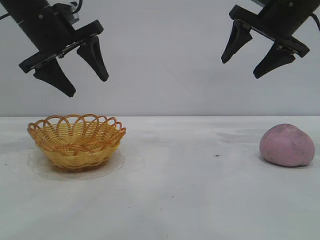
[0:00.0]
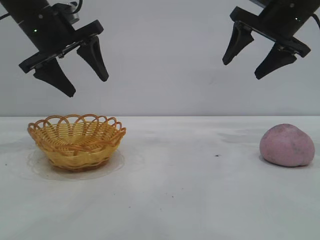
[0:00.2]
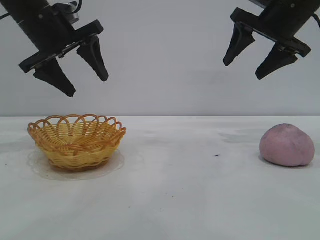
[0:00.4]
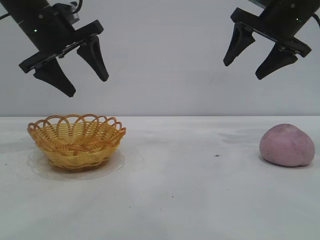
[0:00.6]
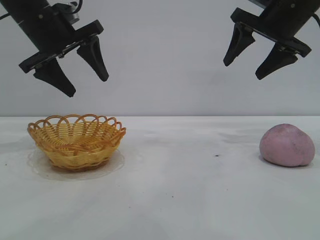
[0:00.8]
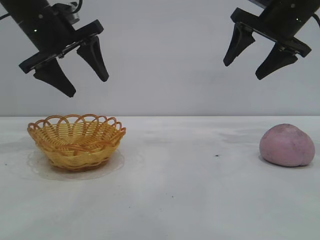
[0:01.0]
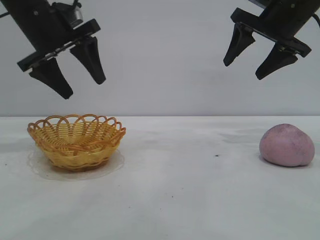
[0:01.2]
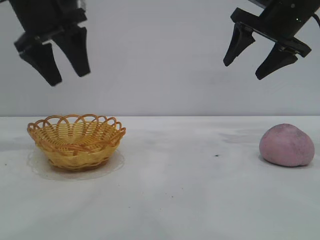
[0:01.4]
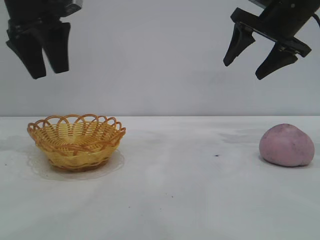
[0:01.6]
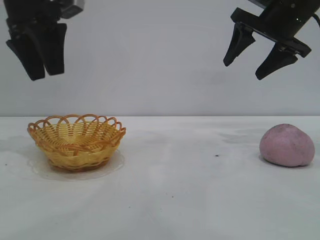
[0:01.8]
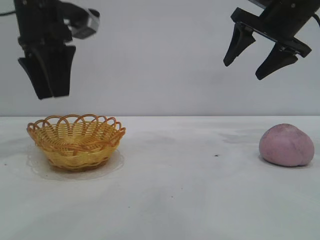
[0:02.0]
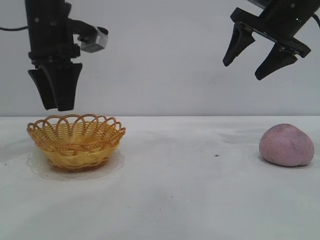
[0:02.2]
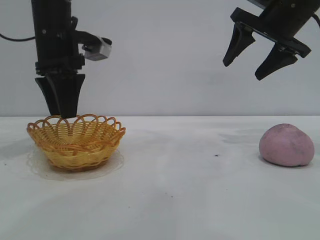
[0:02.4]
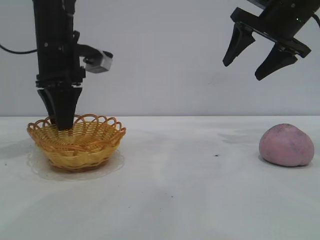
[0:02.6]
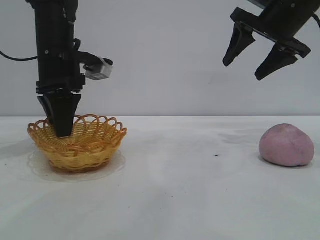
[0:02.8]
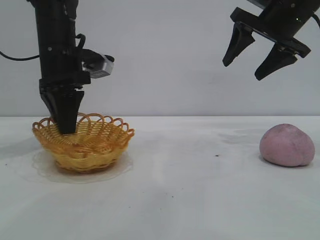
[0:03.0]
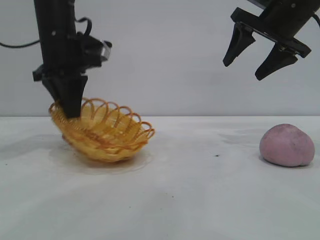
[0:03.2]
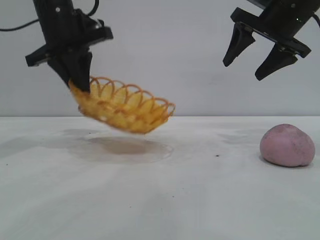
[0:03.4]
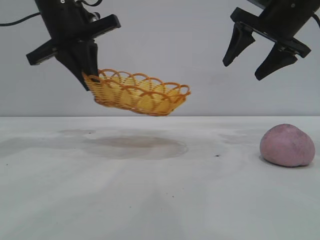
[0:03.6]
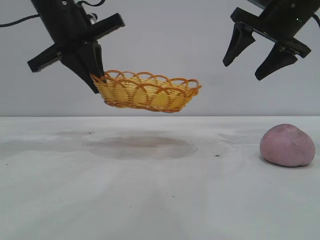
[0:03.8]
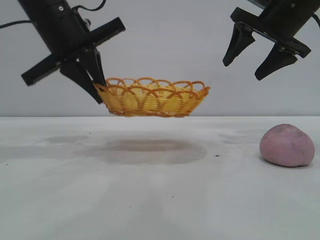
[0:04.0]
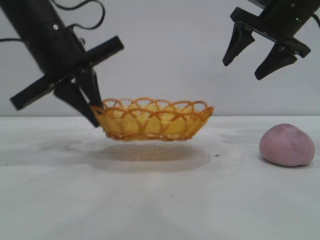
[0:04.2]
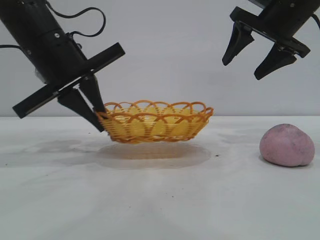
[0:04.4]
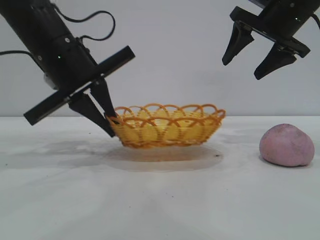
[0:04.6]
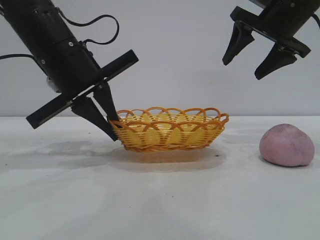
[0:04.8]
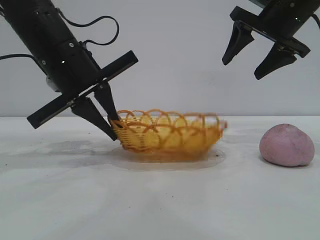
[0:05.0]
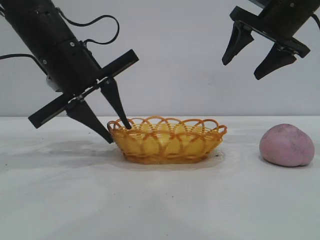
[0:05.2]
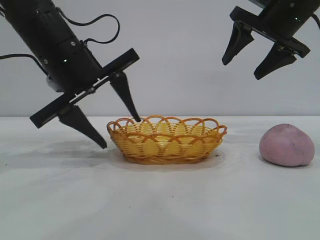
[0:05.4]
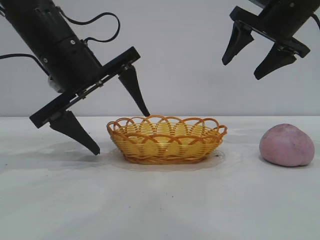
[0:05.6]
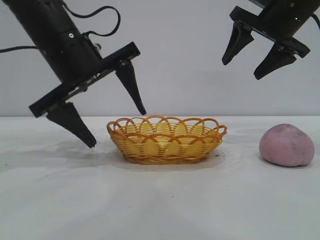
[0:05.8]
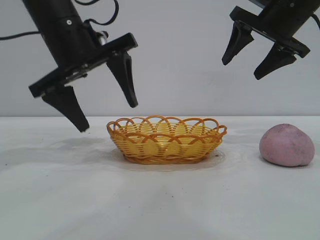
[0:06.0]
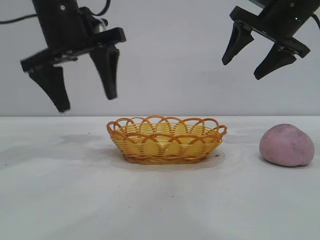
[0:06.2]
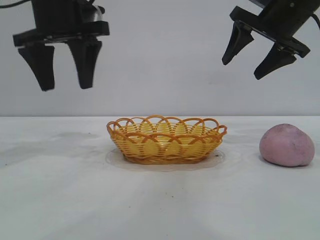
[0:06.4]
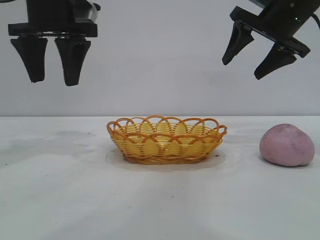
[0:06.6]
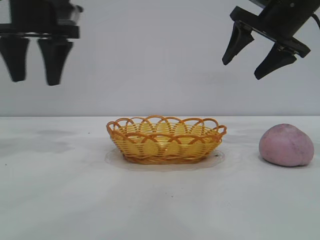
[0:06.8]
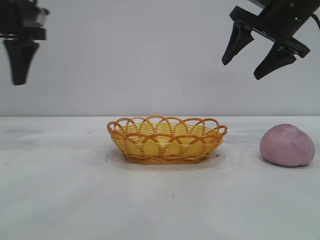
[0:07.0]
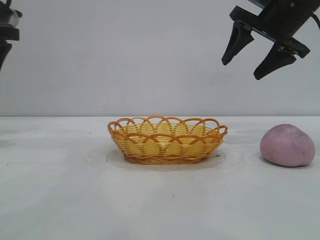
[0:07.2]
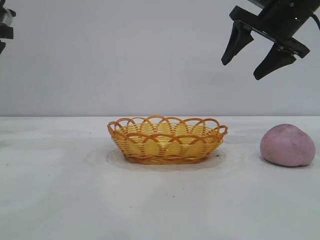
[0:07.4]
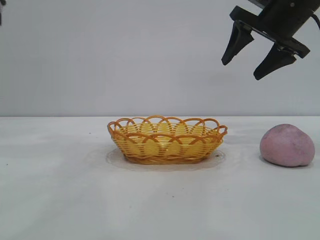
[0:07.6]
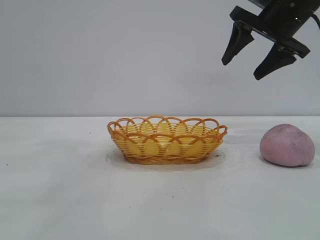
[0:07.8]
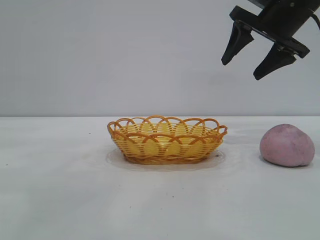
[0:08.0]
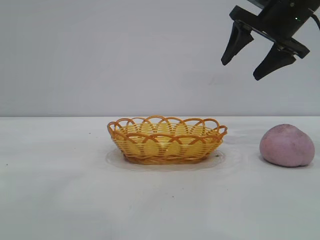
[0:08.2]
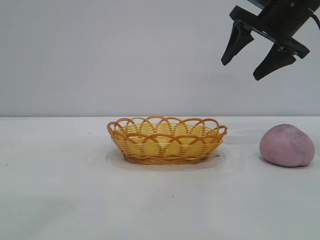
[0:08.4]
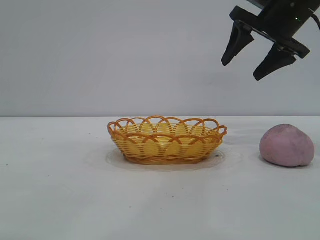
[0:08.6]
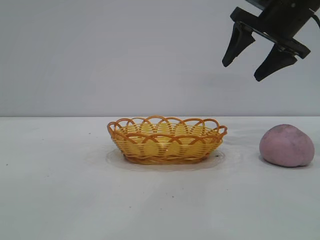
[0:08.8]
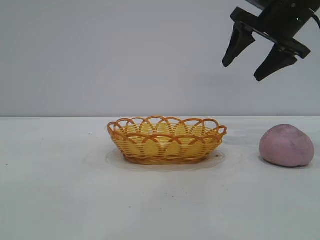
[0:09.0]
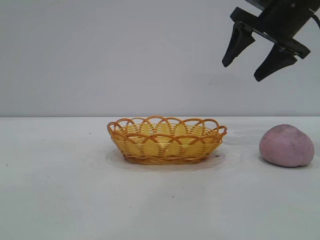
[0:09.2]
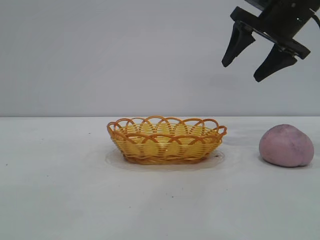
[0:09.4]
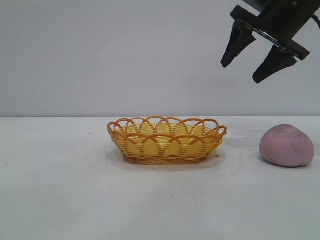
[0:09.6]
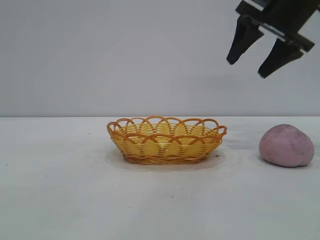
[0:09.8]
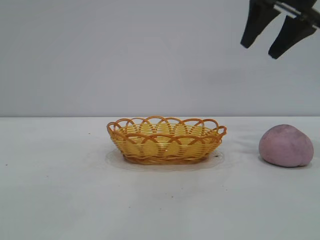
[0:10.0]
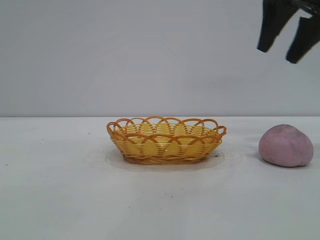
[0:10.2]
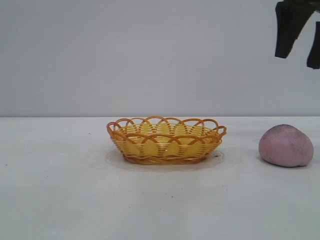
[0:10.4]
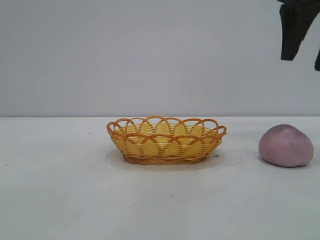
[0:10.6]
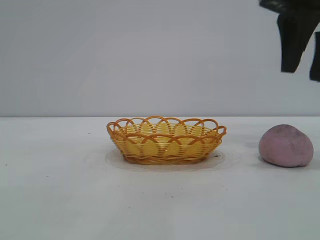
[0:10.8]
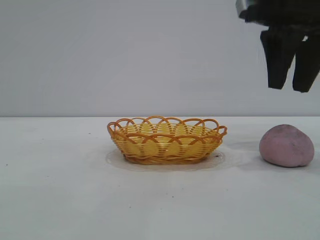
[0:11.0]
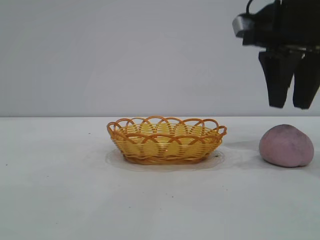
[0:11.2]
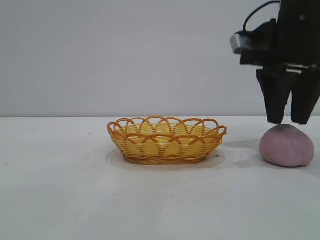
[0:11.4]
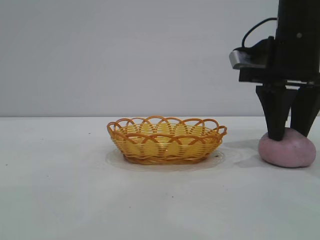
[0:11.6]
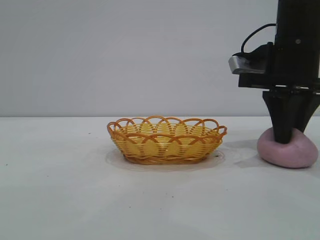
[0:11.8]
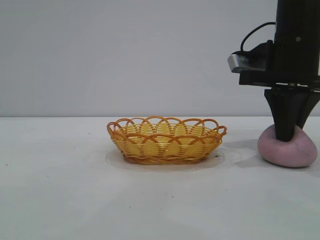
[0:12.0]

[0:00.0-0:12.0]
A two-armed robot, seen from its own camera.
Task of the whole recording: pick up the peach and put it into the basket.
Step, 0:00.0 to 0:06.2: Move the basket to the center of view.

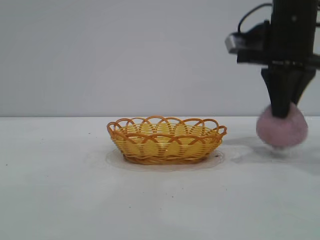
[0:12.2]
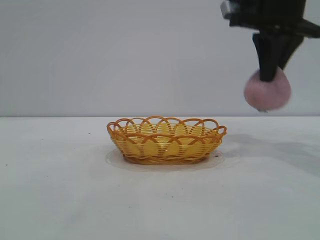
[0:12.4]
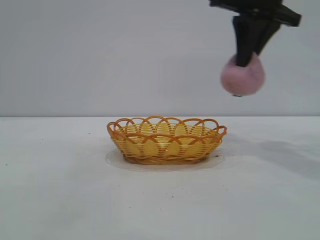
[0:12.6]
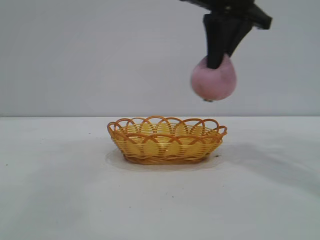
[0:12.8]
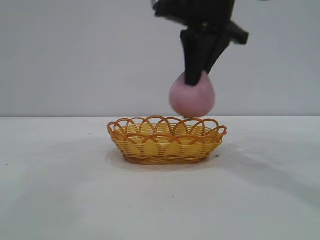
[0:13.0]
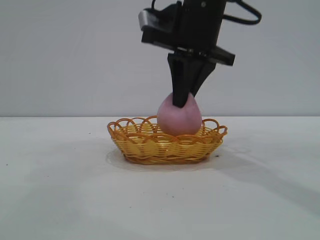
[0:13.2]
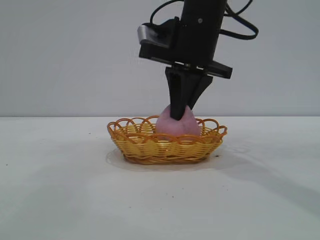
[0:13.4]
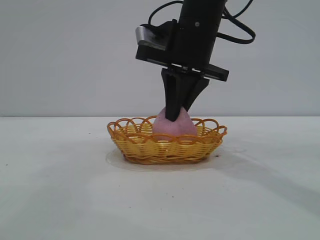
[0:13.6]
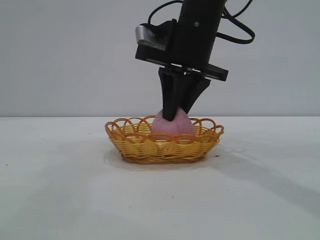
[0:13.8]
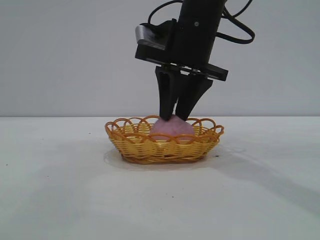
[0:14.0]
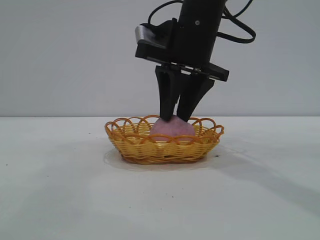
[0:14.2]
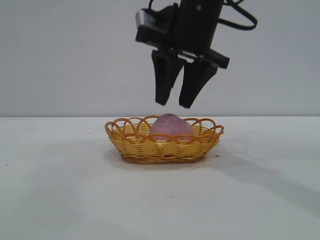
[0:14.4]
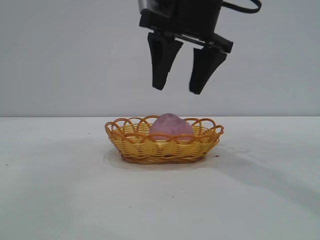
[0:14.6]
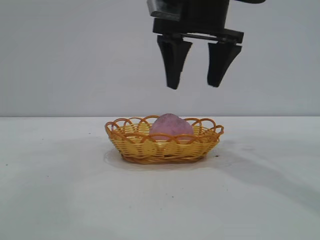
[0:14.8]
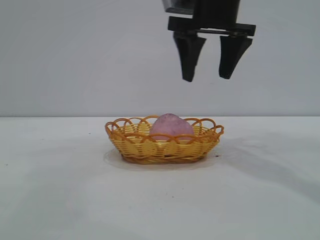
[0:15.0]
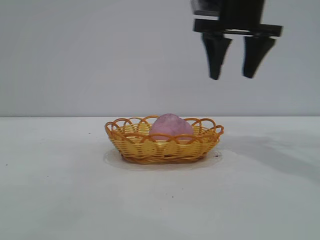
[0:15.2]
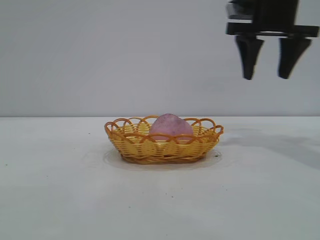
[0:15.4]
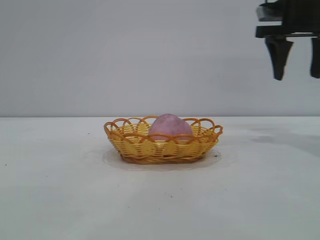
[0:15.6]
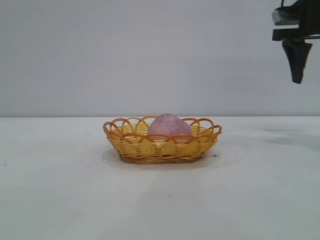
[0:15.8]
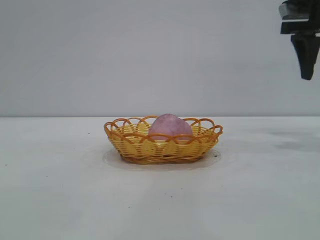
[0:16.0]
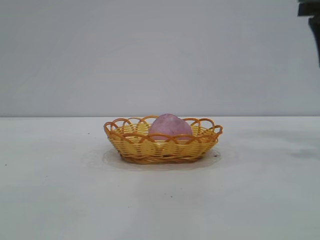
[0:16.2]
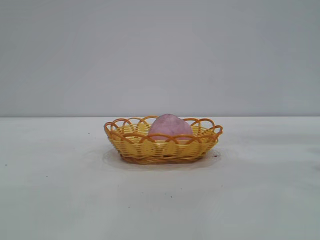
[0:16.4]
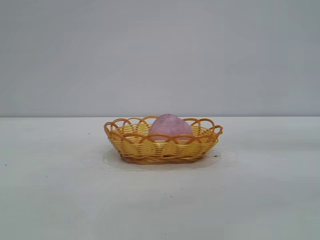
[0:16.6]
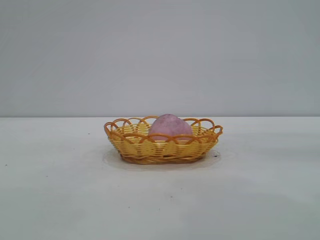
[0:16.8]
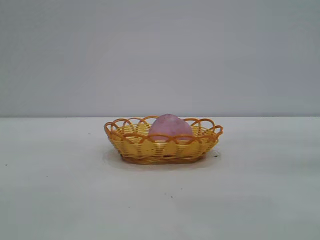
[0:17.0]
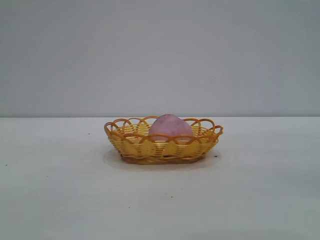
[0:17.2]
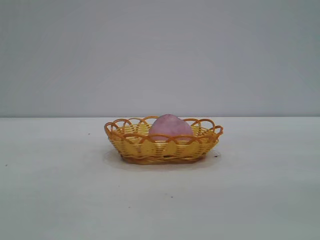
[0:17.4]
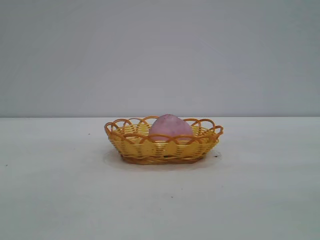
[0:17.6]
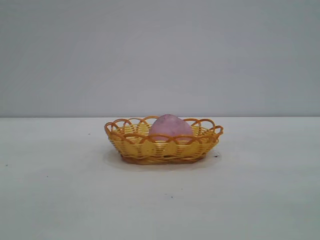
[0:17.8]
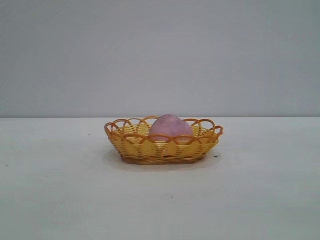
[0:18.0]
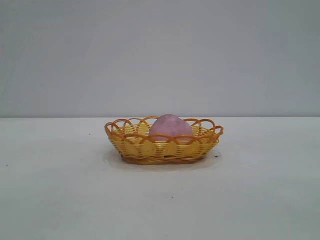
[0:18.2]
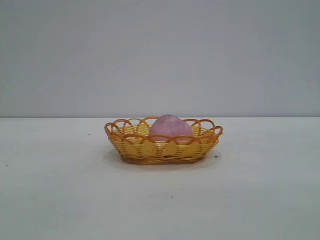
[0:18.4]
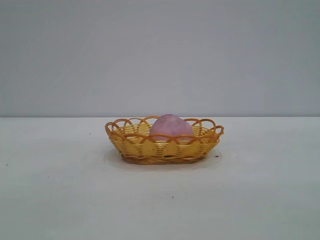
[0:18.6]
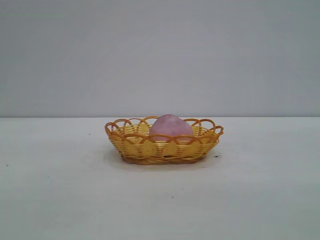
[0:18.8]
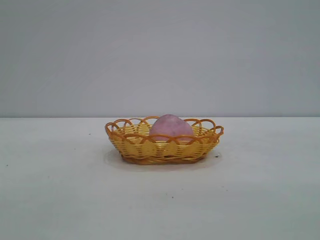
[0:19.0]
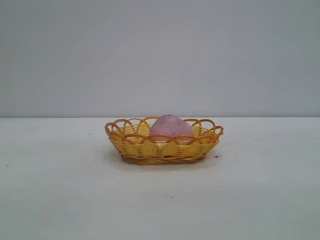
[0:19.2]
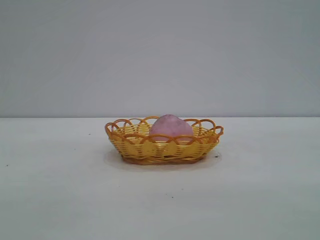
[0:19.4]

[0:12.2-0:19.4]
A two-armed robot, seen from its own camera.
Task of the whole recording: pick up the peach and put it into the basket.
Step, 0:12.6 to 0:14.8: place the peach into the basket.

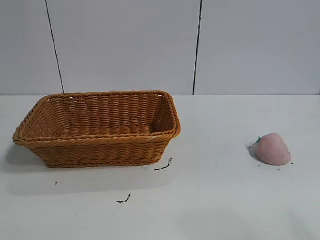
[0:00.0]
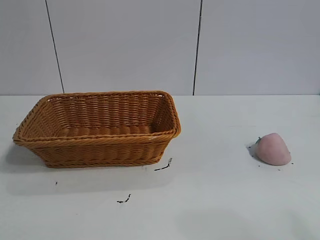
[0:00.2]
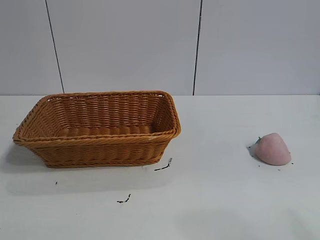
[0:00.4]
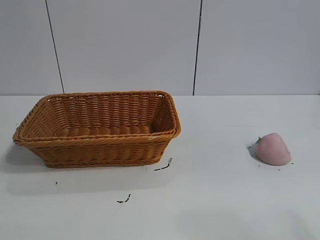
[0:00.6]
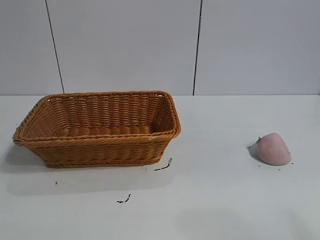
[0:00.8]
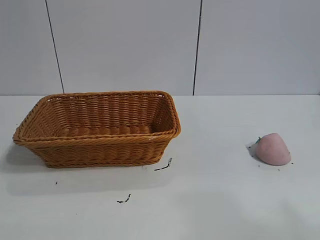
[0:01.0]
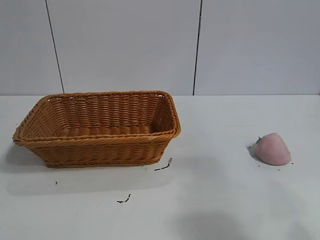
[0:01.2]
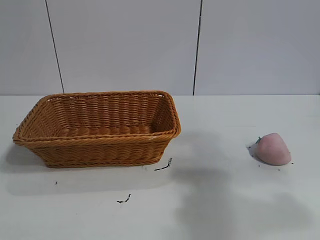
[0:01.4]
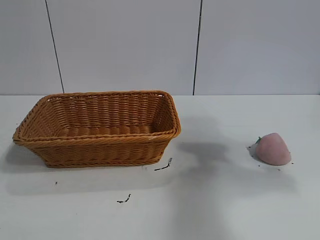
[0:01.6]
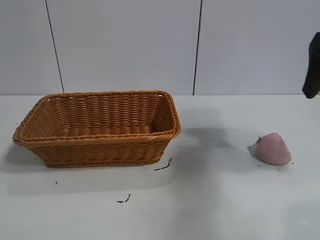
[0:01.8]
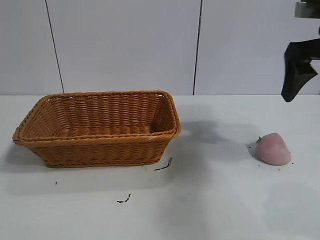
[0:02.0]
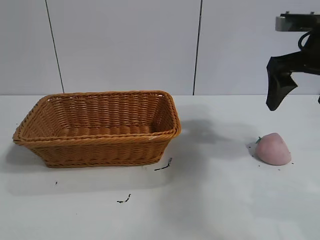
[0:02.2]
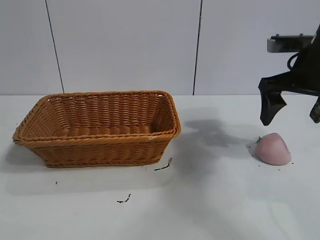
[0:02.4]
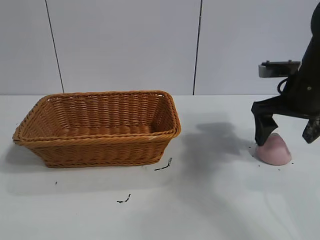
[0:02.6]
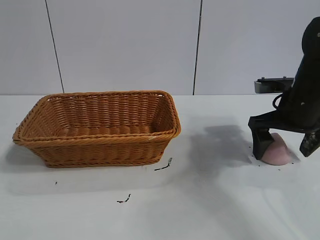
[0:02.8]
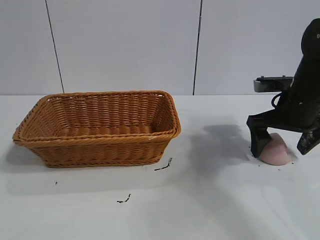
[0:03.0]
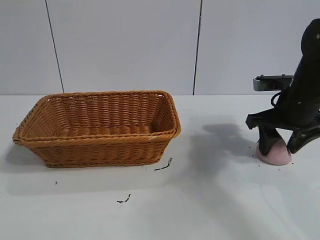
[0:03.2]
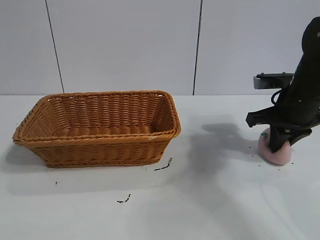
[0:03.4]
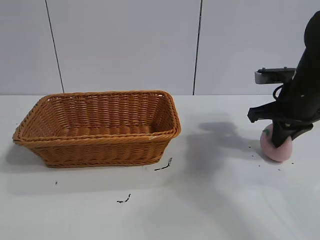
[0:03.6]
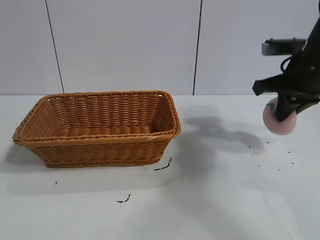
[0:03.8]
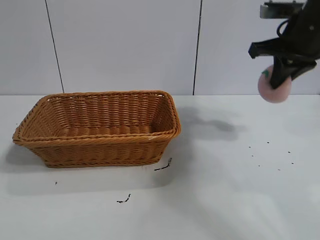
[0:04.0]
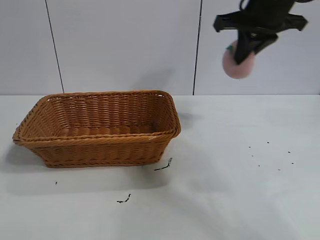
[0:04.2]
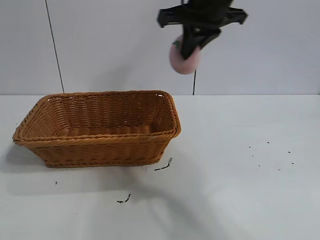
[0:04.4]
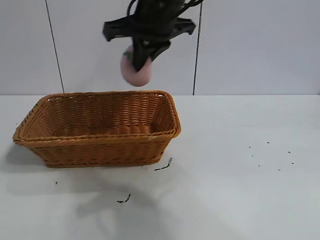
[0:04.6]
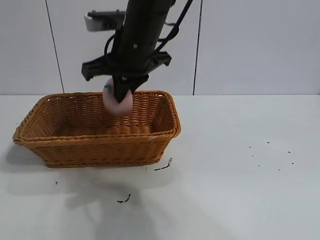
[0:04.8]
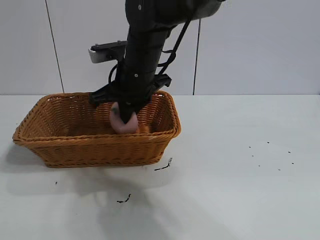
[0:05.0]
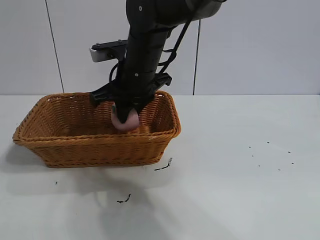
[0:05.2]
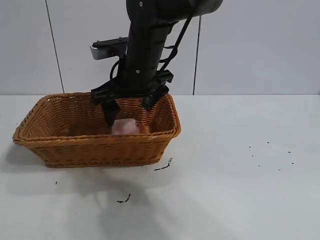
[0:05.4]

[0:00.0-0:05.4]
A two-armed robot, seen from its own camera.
Task of the whole recording: pick up the peach and put it into the basket.
Step, 0:00.8 to 0:03.4: Grasp the peach with right gripper.
Step, 0:03.6 to 0:05.4: Place the peach in the basket with right gripper.
